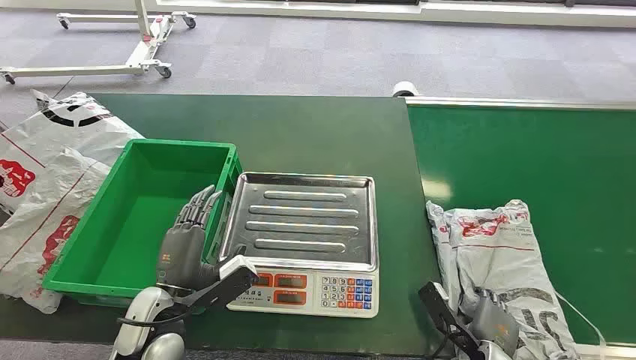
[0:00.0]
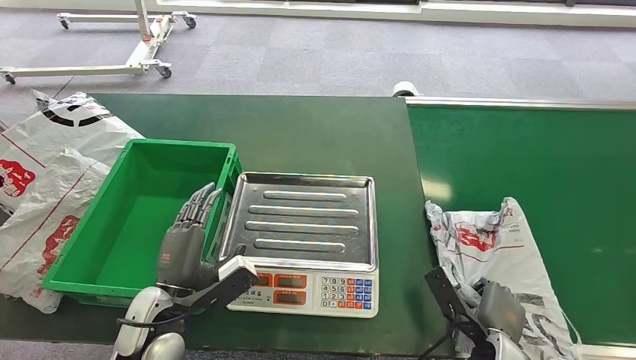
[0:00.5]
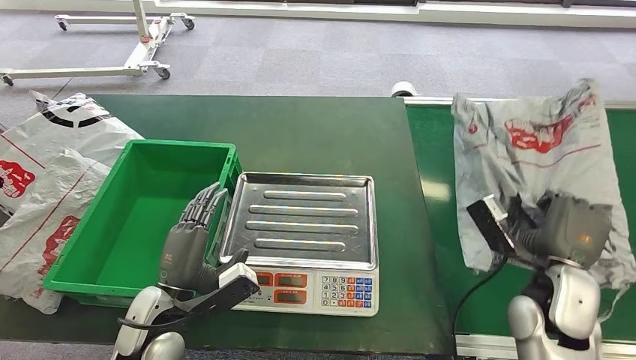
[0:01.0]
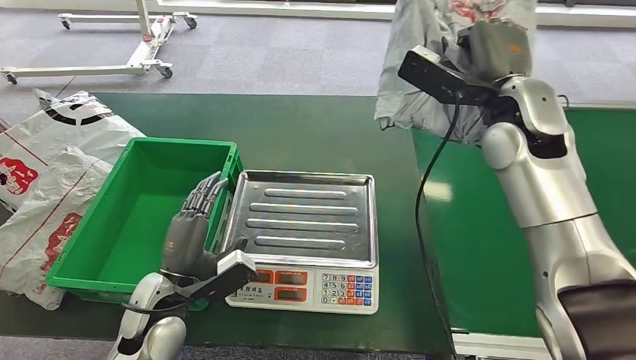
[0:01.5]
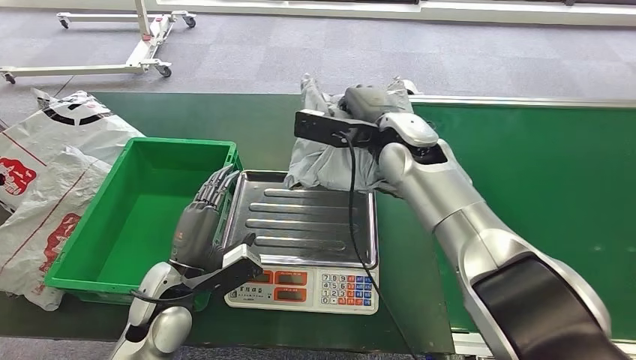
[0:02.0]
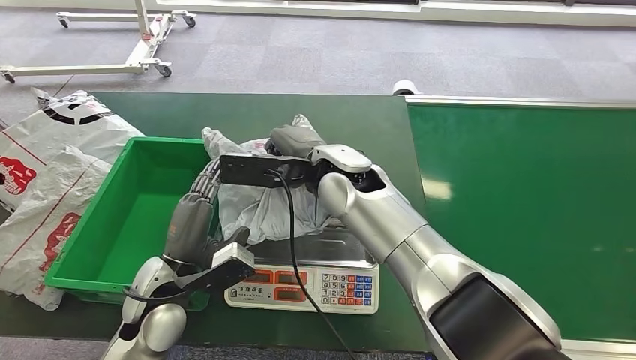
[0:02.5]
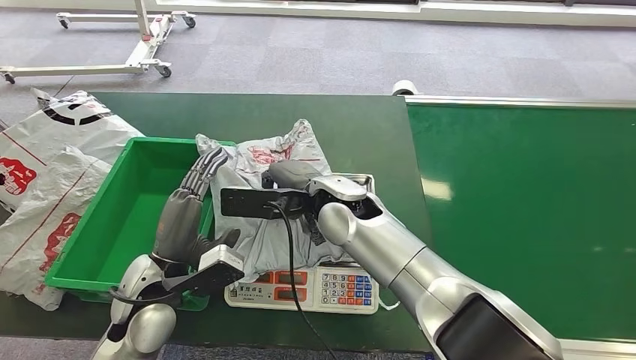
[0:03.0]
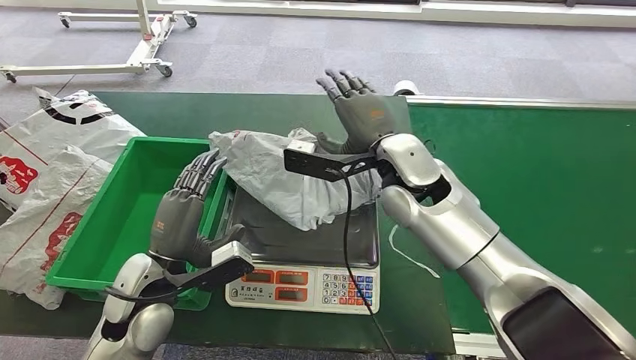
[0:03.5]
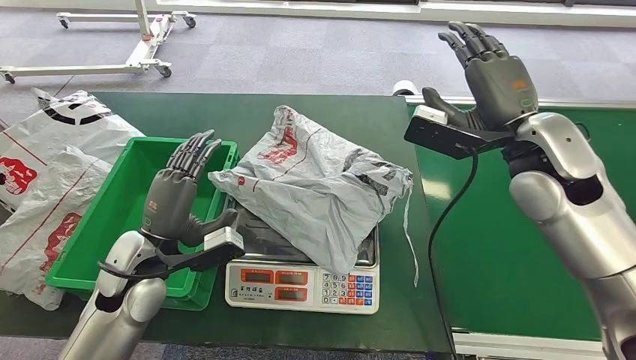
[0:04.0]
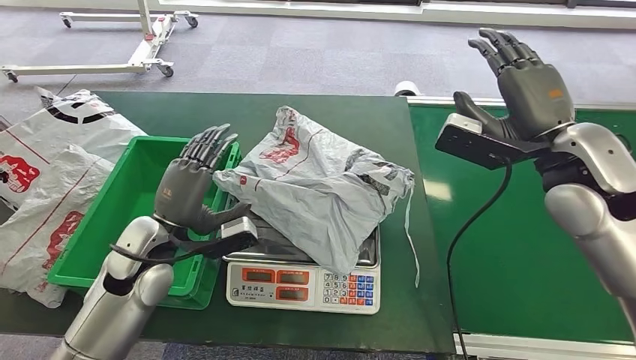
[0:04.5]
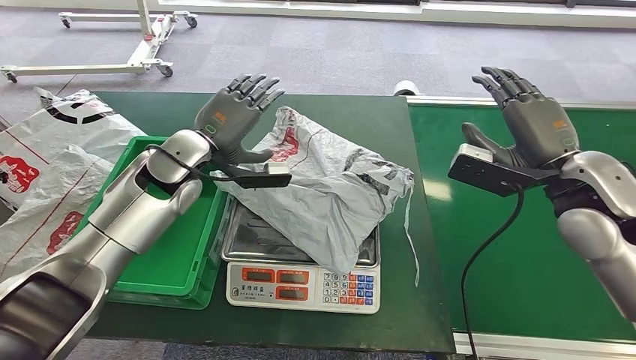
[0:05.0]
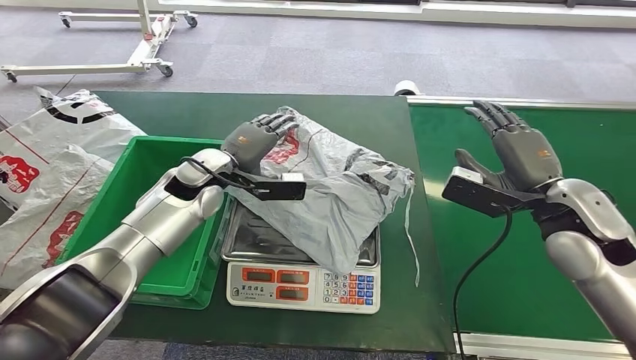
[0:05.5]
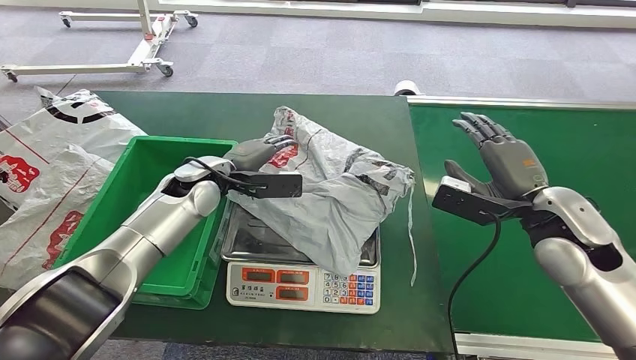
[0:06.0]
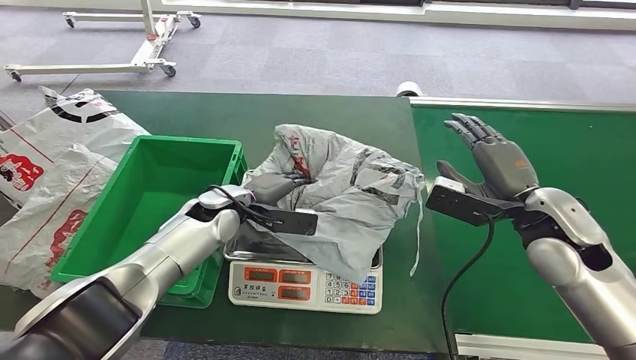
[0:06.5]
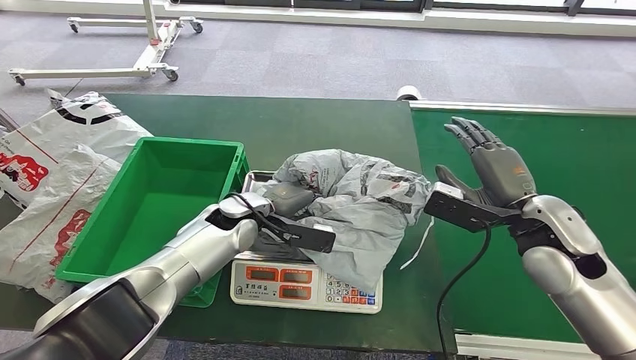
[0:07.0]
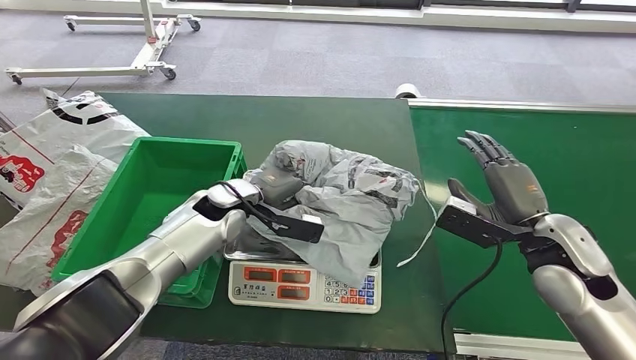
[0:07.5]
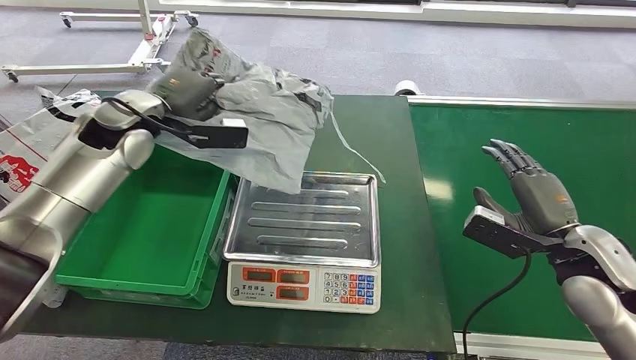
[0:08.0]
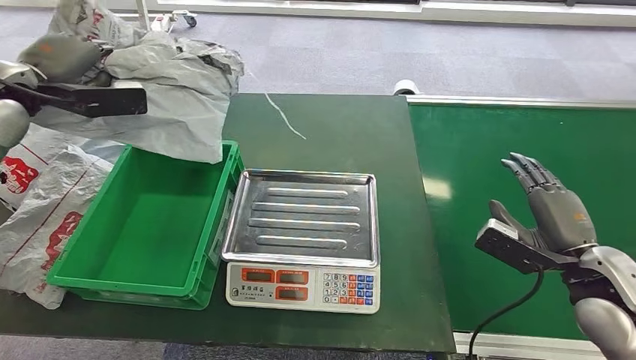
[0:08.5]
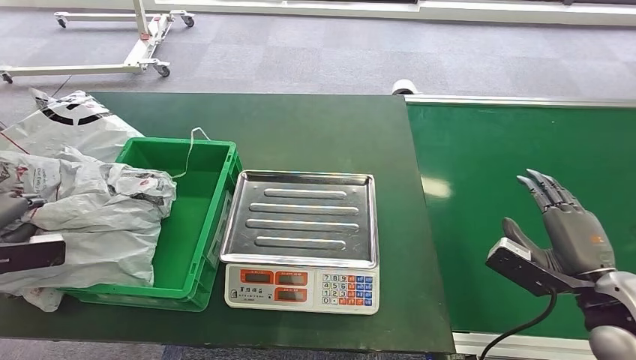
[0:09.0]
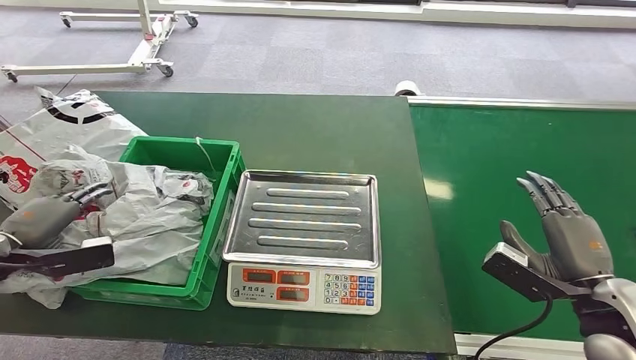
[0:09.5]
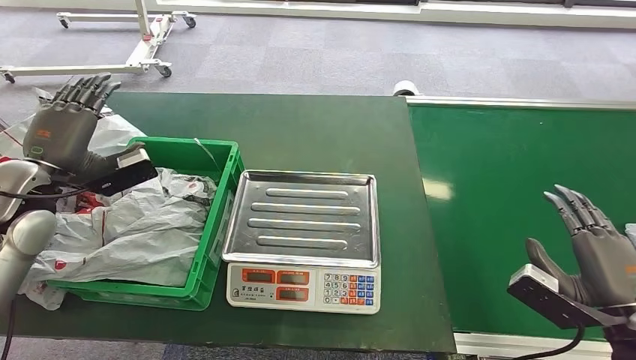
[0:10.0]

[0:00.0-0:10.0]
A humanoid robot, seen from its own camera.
Step, 0:00.0 to 0:01.0: Pick up the package from the conveyor belt.
Step, 0:01.5 to 0:03.5: Place the package onto the inbound machine.
Step, 0:04.0 to 0:08.0: Pick up the package from the inbound machine.
Step, 0:08.5 to 0:10.0: Place the package into the parcel locker.

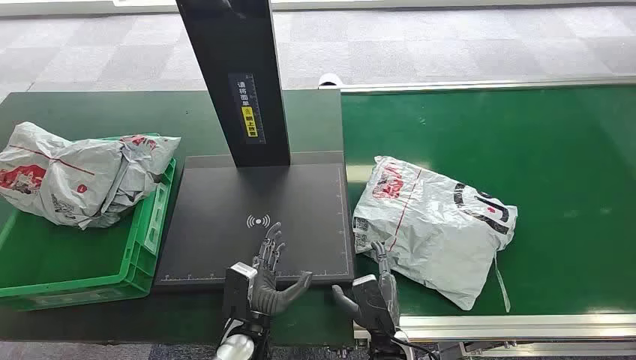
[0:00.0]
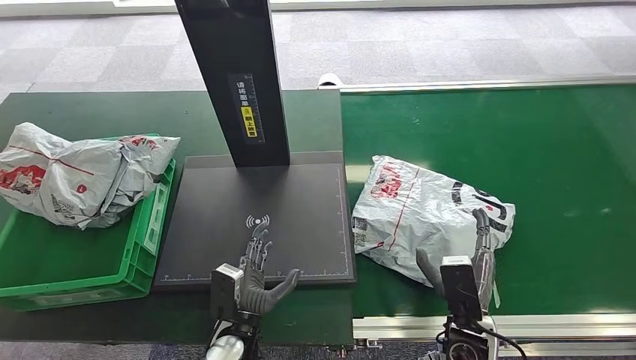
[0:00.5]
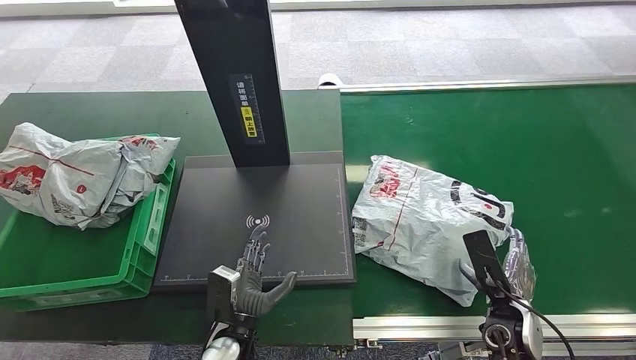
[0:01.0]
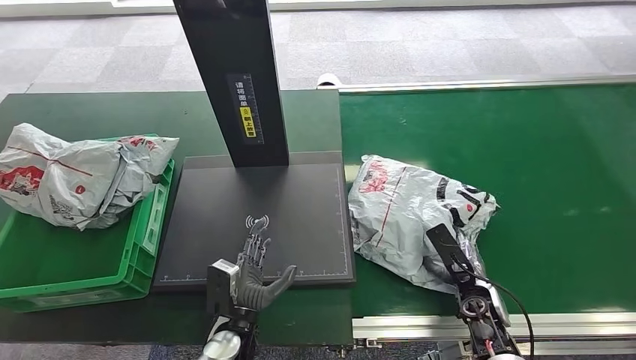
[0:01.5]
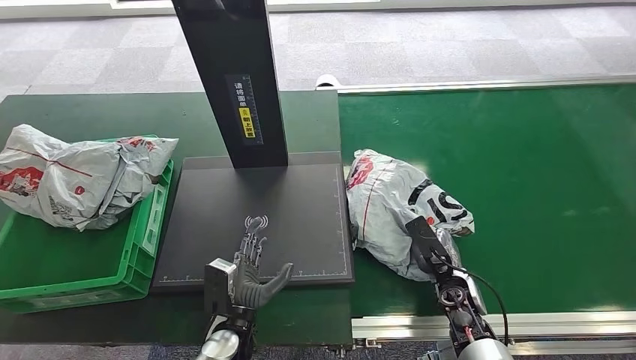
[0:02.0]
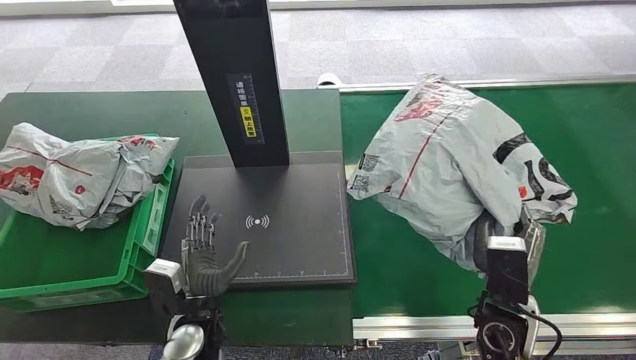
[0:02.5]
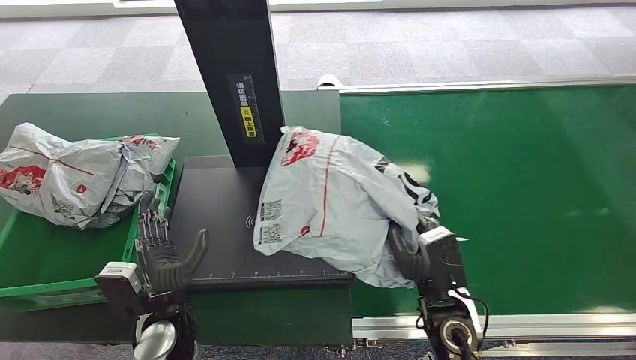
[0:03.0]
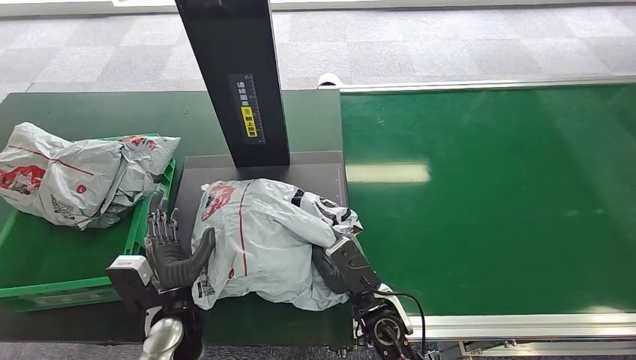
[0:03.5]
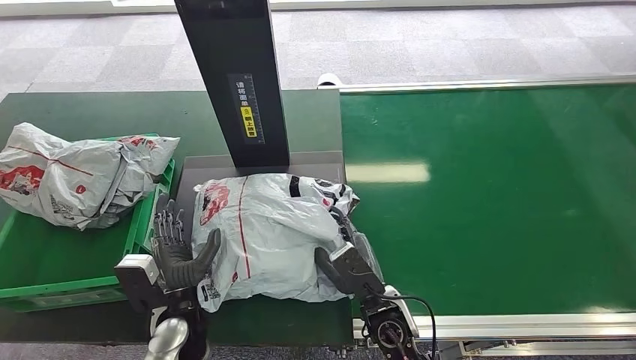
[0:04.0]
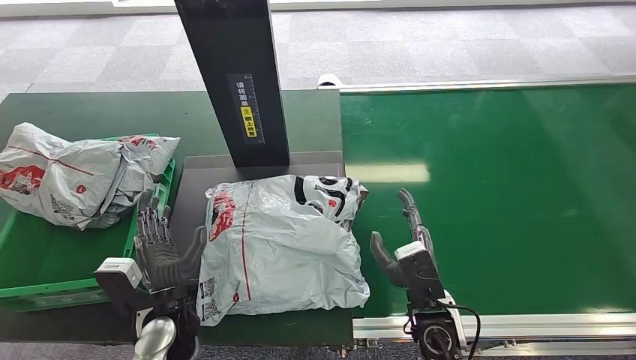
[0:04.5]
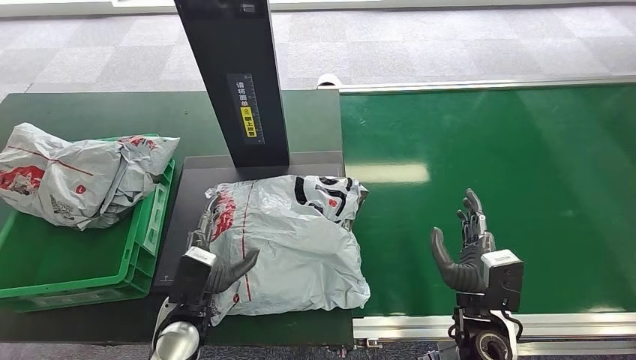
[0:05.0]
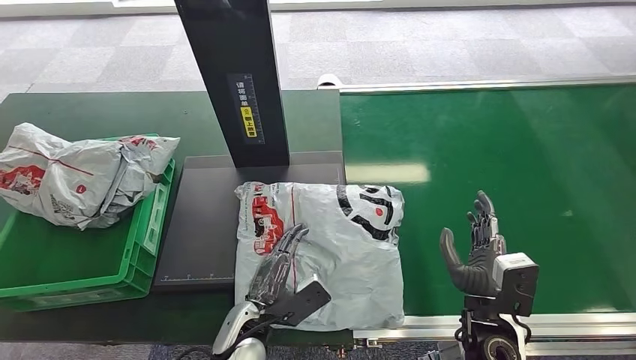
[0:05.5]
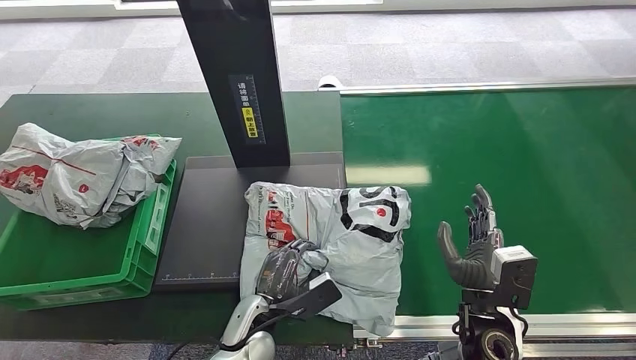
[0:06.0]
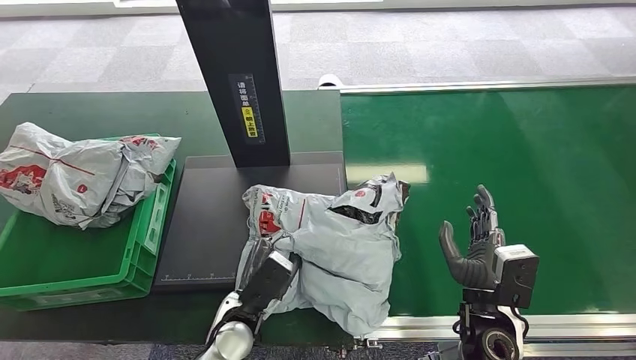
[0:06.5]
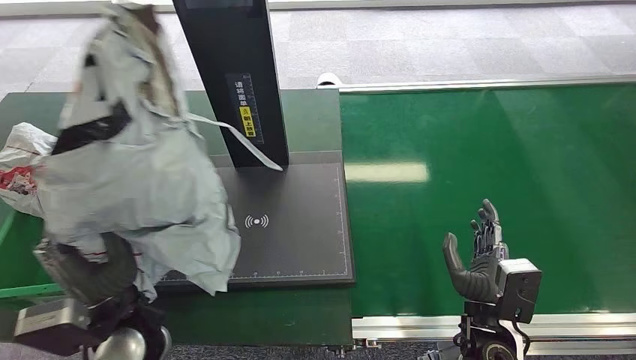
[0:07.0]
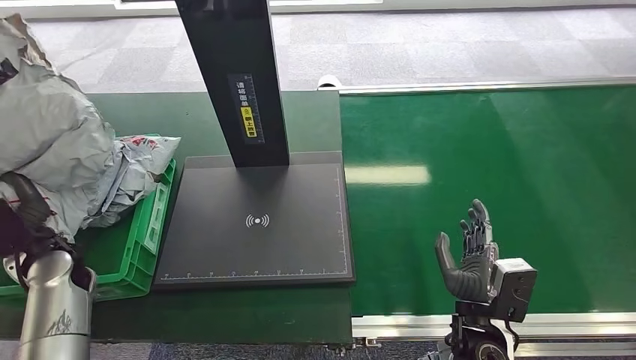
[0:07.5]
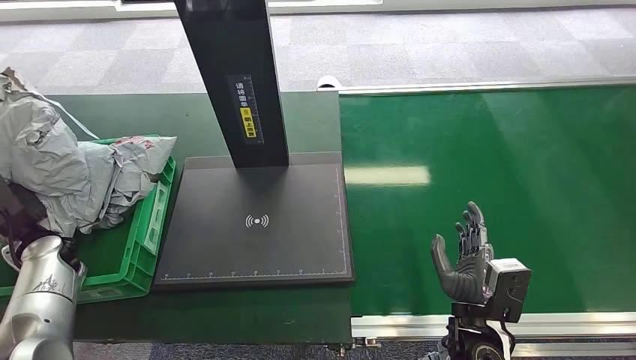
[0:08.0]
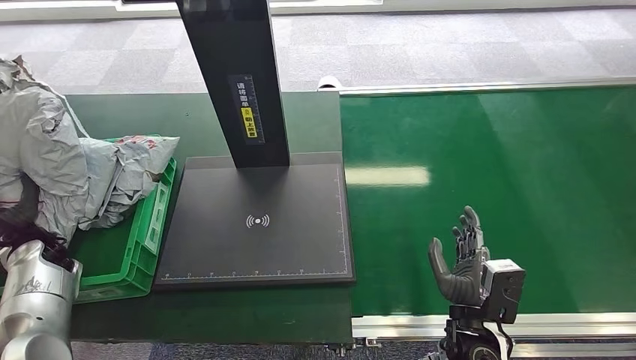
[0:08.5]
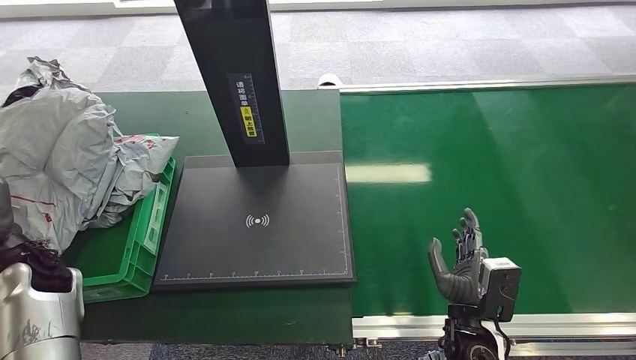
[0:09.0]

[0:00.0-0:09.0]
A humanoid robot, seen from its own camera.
Step, 0:00.0 to 0:02.5: Pick up the package from the conveyor belt.
Step, 0:03.0 to 0:04.5: Place the package onto the inbound machine.
Step, 0:05.0 to 0:06.5: Pick up the package from the inbound machine.
Step, 0:07.5 to 0:09.0: Place the package into the parcel locker.

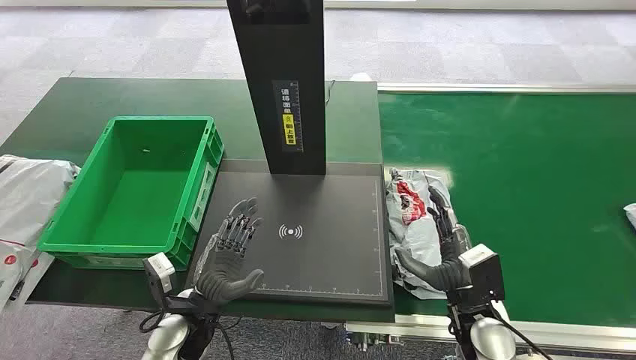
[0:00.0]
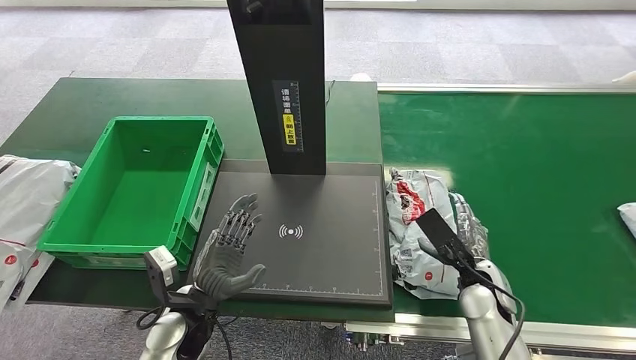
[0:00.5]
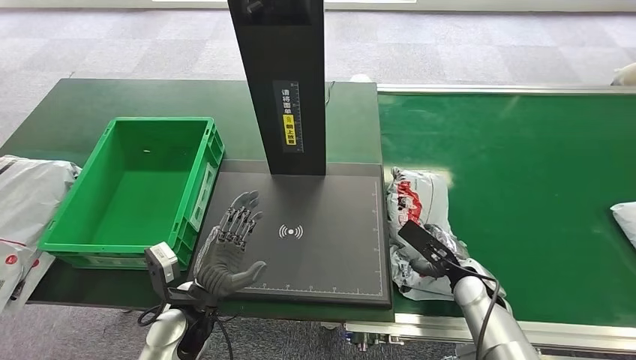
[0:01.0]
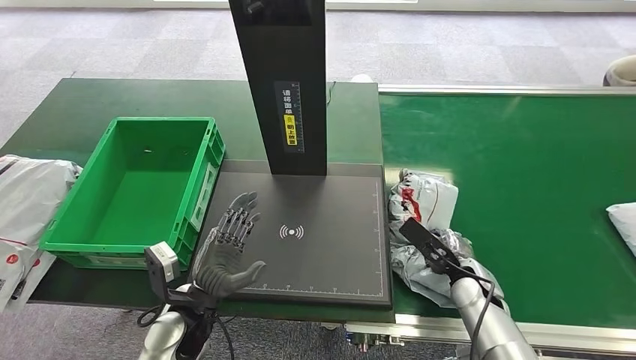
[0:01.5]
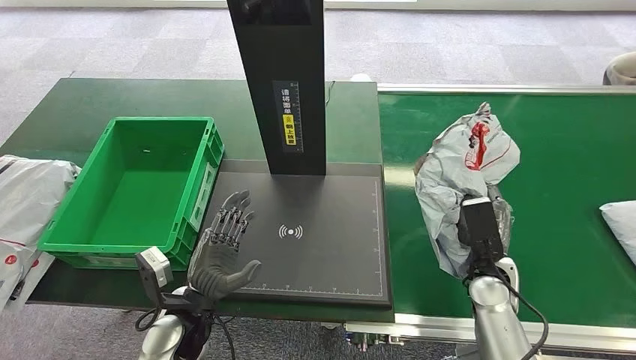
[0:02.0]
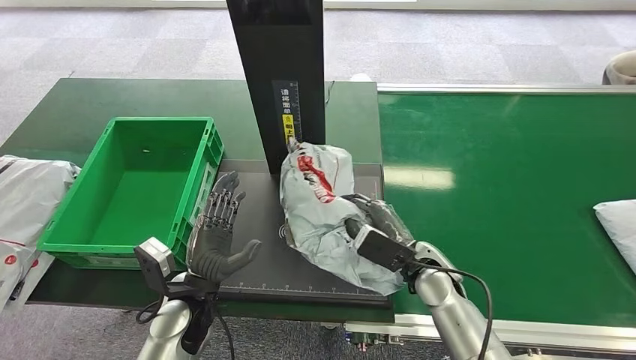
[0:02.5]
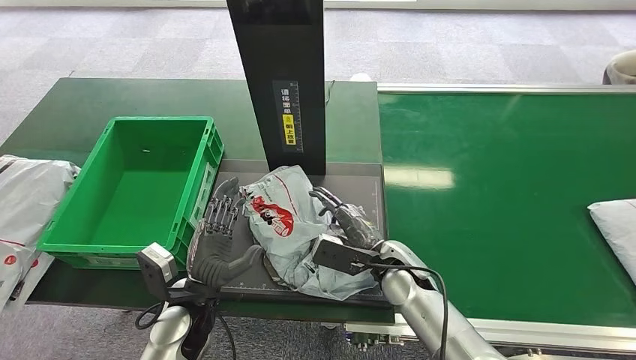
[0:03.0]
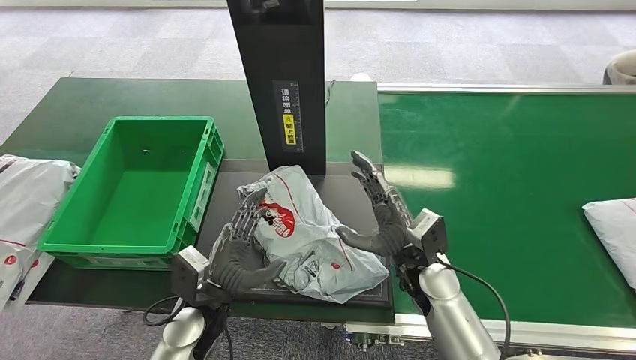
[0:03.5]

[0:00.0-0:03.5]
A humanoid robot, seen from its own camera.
Step, 0:00.0 to 0:02.0: Pick up the package from the conveyor belt.
Step, 0:02.5 to 0:03.0: Place the package onto the inbound machine.
0:02.0 to 0:03.5: The right hand moves to the left, some 15 cm.
